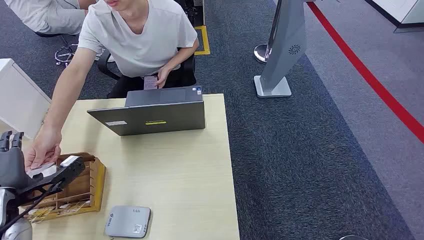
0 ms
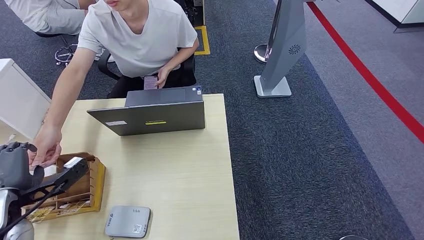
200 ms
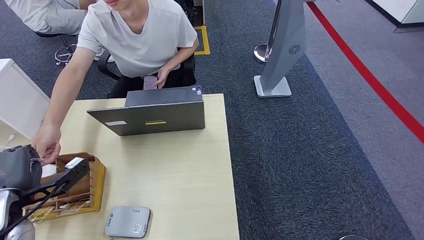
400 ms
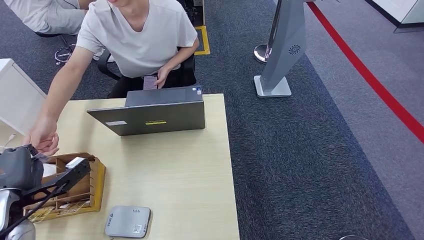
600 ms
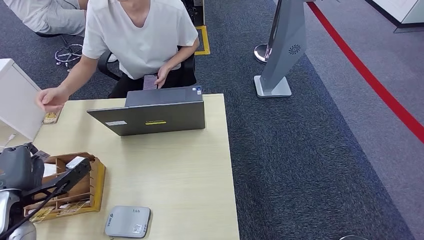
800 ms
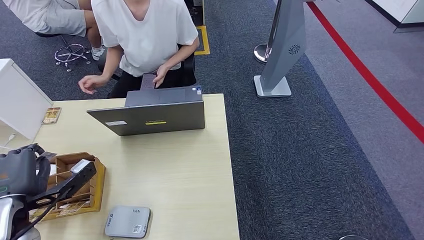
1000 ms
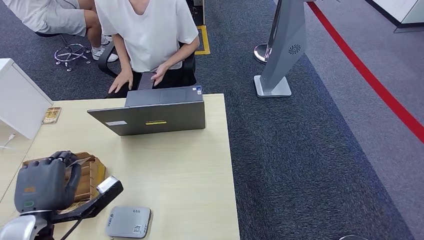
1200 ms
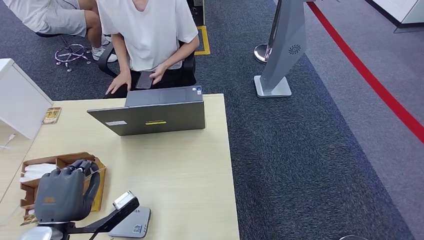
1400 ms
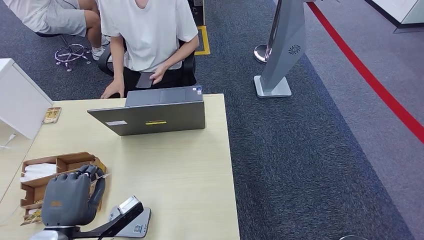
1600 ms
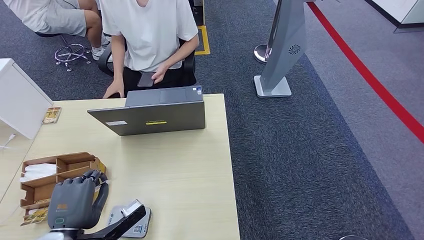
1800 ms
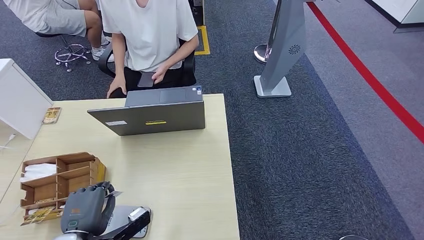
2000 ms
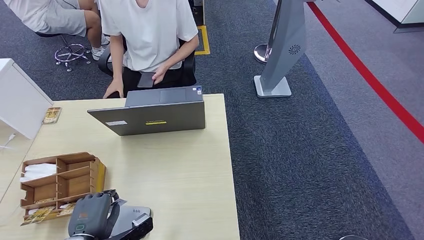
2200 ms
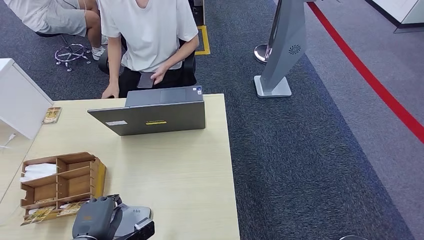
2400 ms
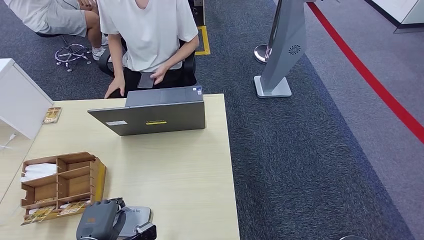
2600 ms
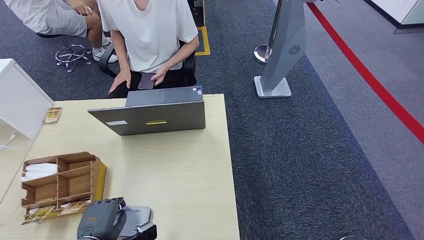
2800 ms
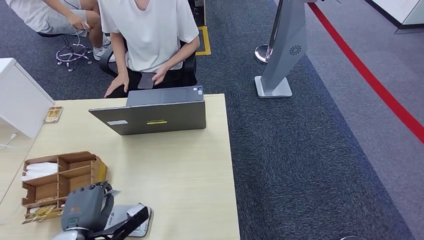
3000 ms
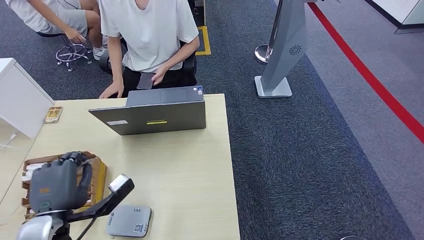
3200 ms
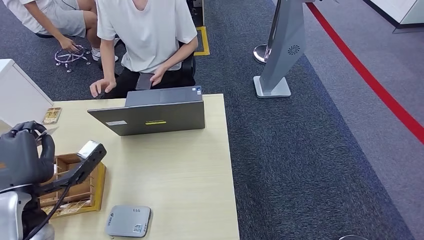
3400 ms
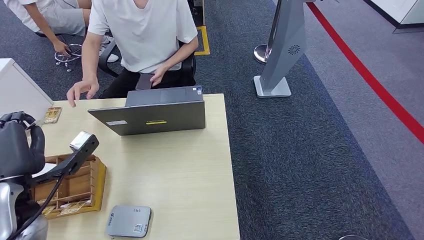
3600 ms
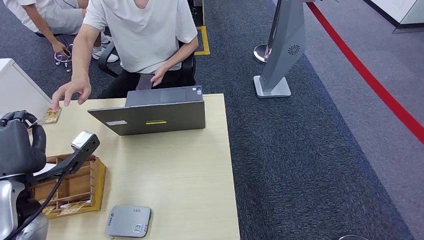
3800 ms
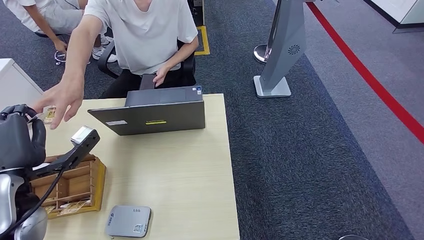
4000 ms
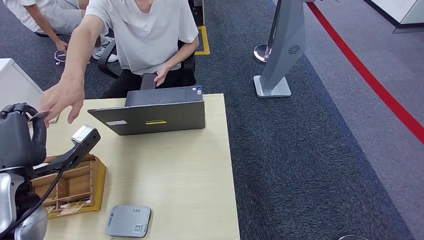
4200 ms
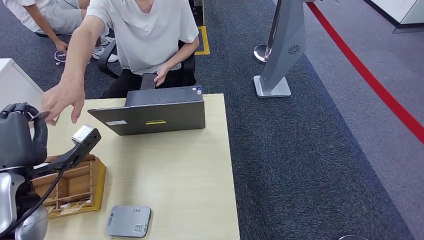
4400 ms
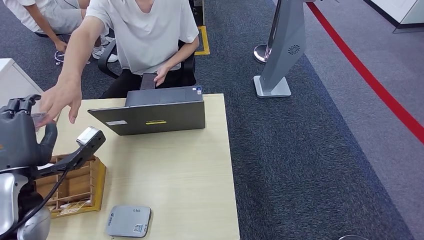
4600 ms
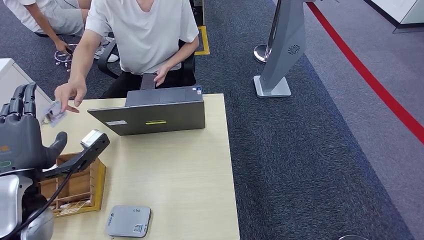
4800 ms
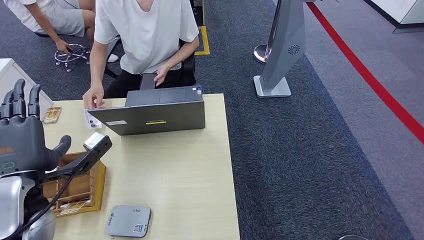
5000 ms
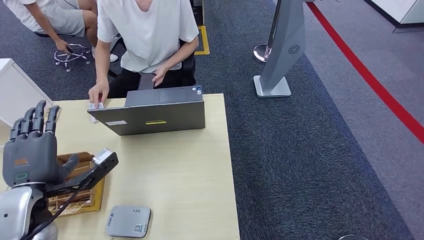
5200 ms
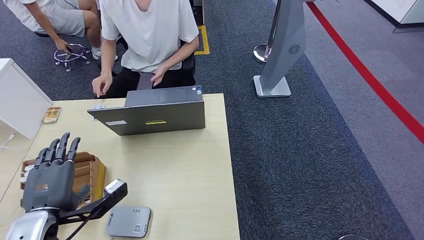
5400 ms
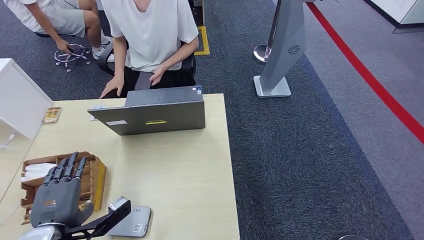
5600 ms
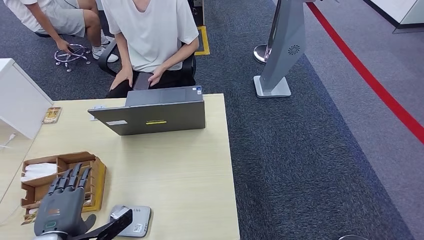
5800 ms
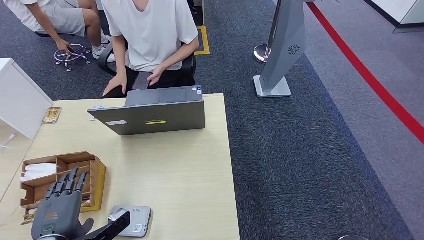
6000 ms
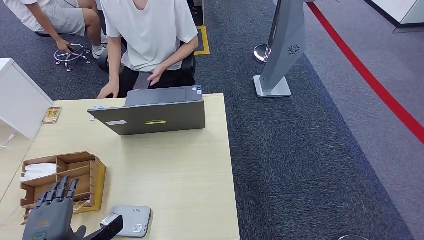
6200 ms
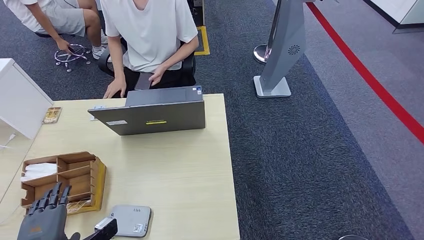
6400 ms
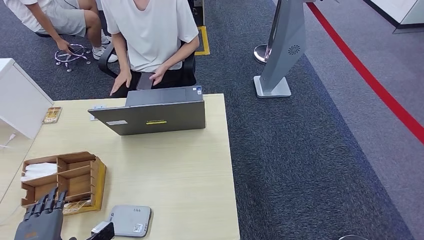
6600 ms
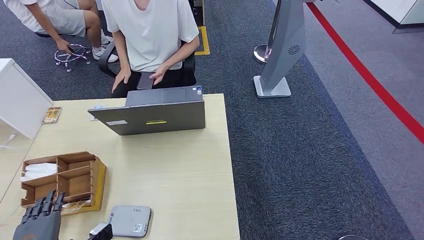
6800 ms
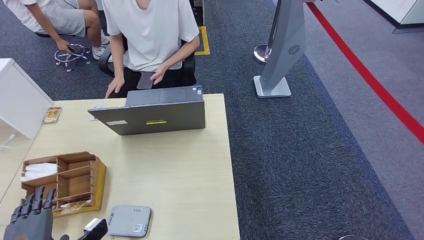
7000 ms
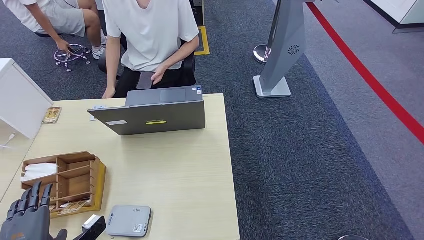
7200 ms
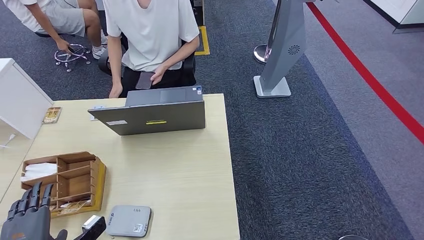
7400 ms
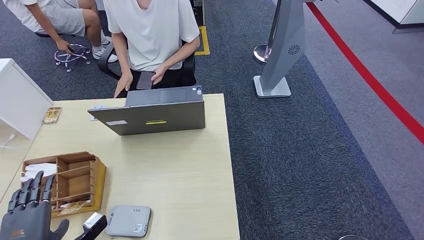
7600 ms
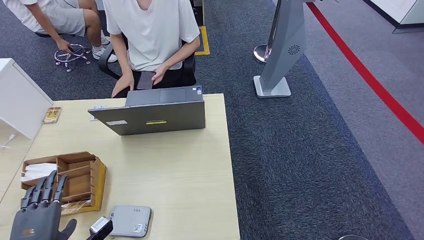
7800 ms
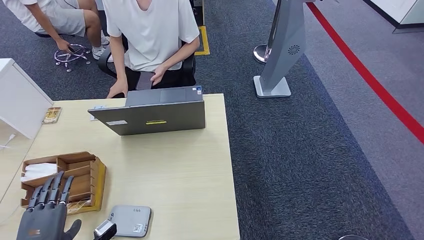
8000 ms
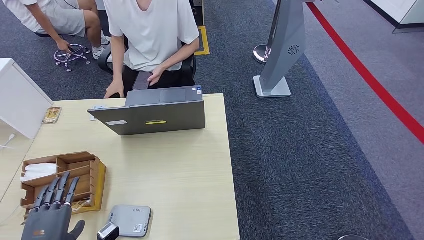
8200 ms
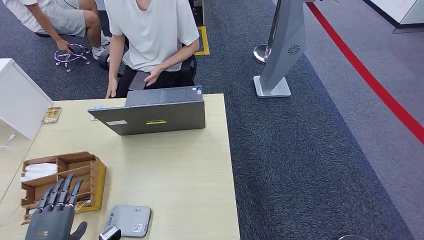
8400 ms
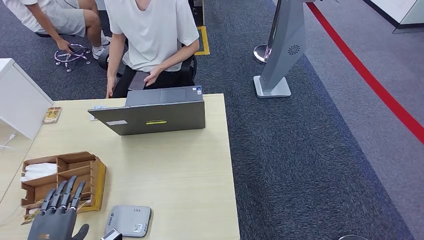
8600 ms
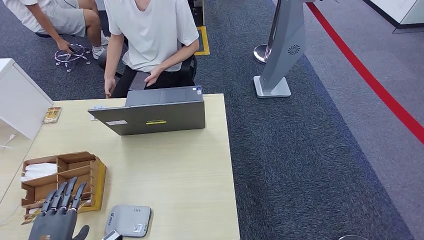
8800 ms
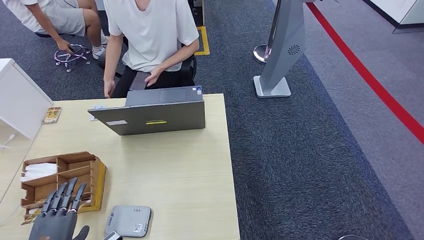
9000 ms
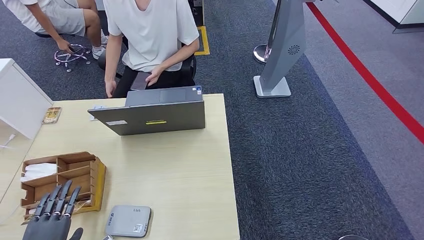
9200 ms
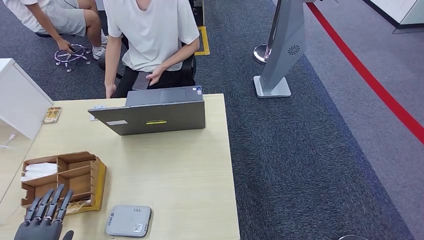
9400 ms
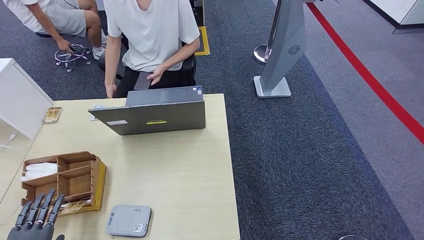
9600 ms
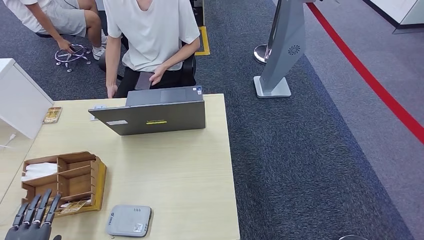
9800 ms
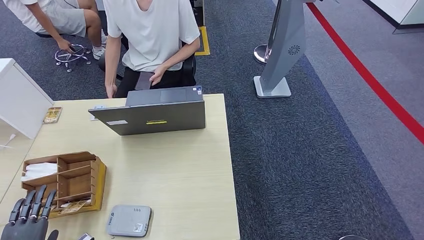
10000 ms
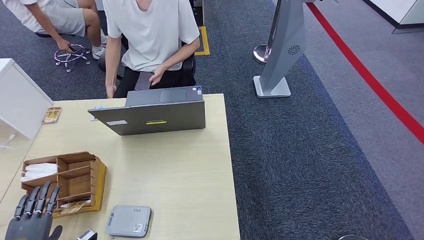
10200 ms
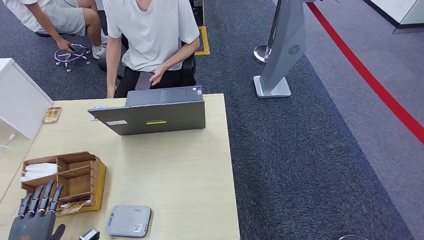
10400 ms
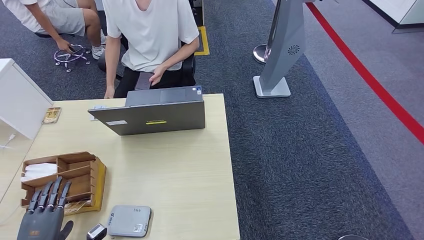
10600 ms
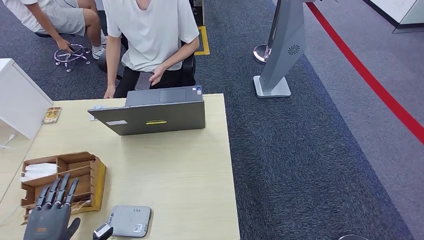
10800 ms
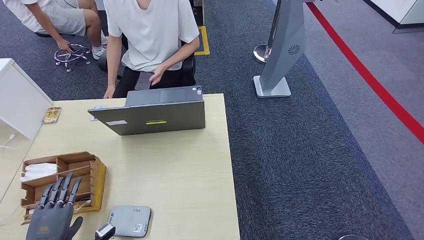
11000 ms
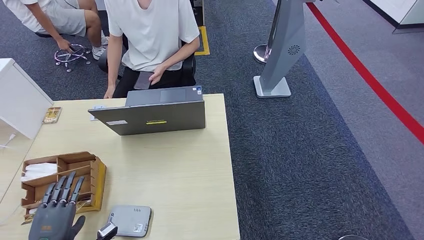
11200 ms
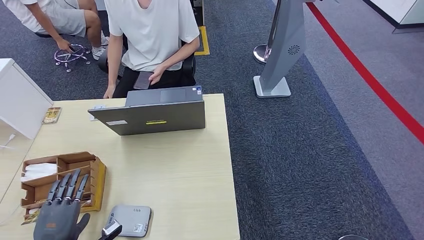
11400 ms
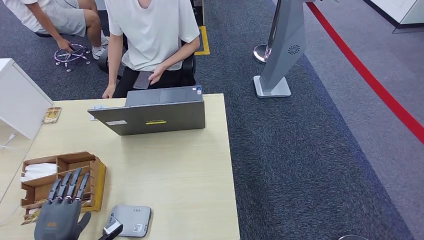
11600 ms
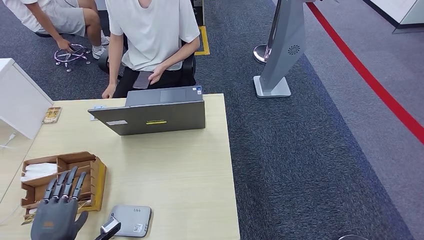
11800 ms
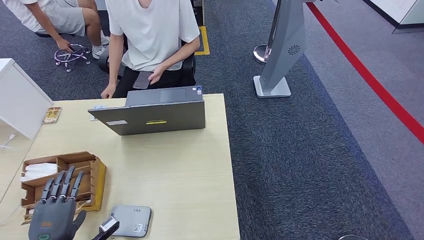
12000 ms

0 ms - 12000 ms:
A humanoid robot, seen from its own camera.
Step, 0 ms - 1200 ms: Take the ID card from the person's hand.
Step, 1400 ms - 2800 ms: Place the ID card on the card reader.
Step, 3000 ms - 5600 ms: Hand the ID card to the person.
1600 ms - 3000 ms: The left hand travels downward by some 5 cm.
3000 ms - 4400 ms: The left hand goes approximately 15 cm upward and forward.
4400 ms - 6000 ms: The left hand is displaced downward and backward by roughly 15 cm.
6000 ms - 7600 ms: The left hand moves about 5 cm.
7600 ms - 9000 ms: There are only small adjustments of the hands.
9000 ms - 10400 ms: The left hand travels to the left by roughly 5 cm.
10400 ms - 12000 ms: The left hand is displaced to the right by about 5 cm.

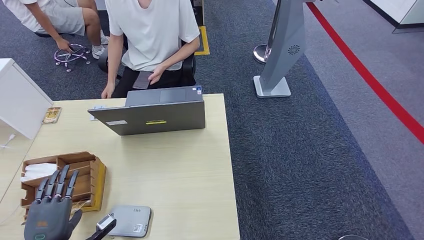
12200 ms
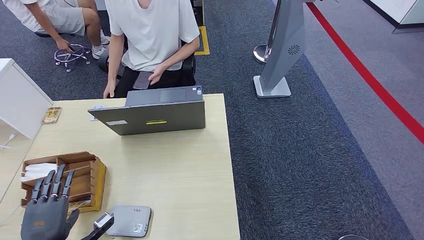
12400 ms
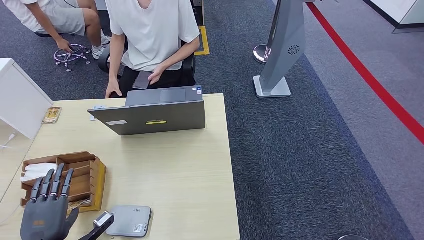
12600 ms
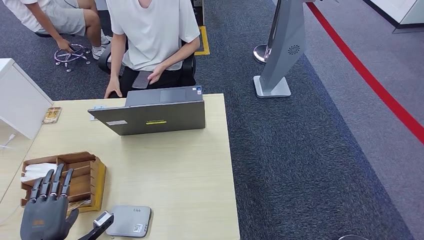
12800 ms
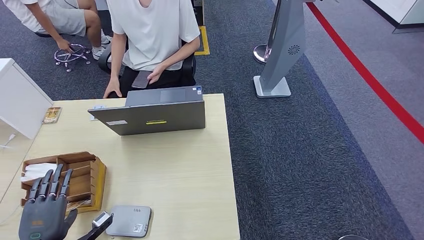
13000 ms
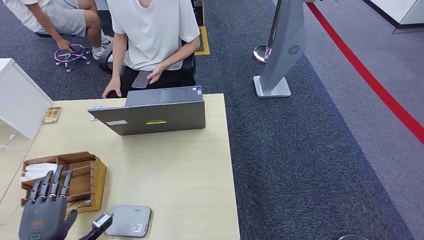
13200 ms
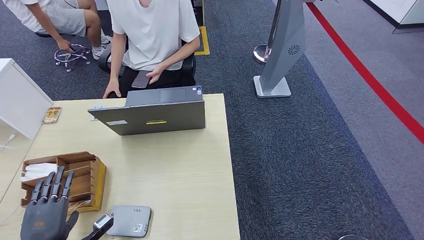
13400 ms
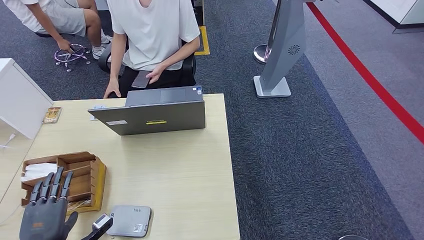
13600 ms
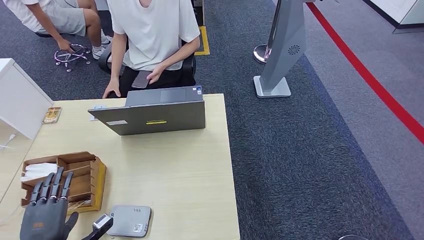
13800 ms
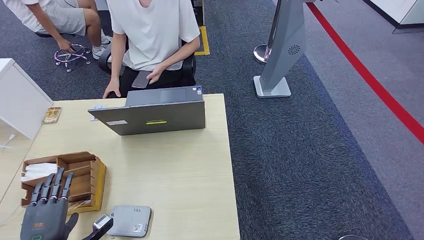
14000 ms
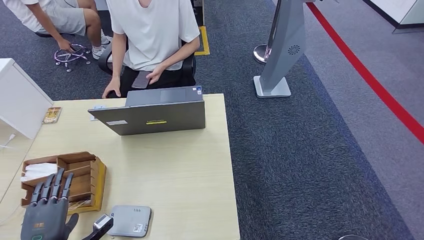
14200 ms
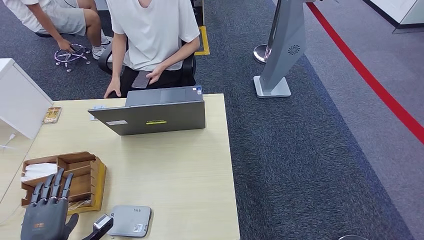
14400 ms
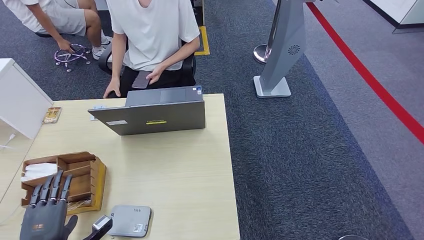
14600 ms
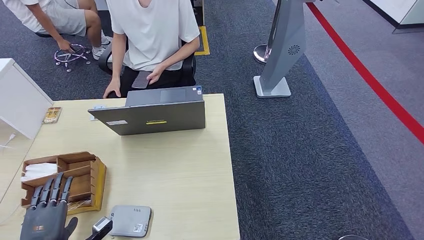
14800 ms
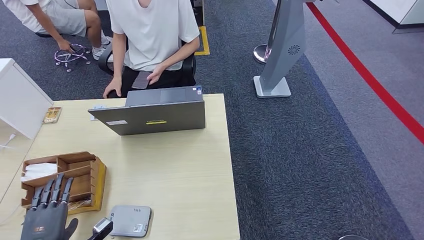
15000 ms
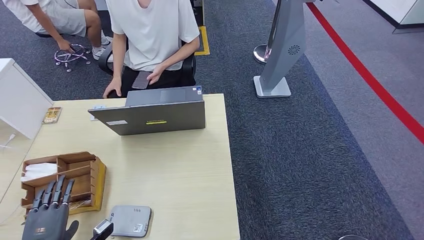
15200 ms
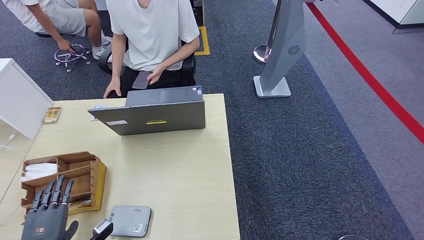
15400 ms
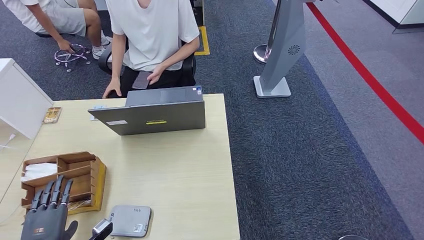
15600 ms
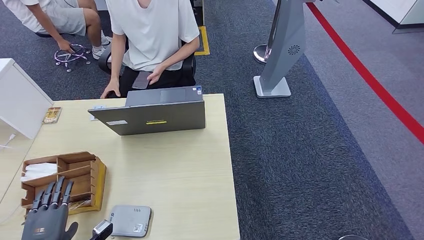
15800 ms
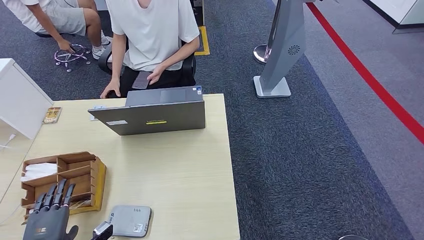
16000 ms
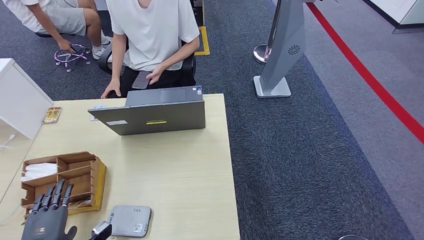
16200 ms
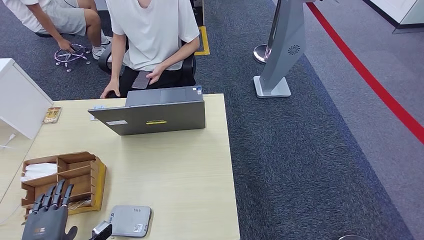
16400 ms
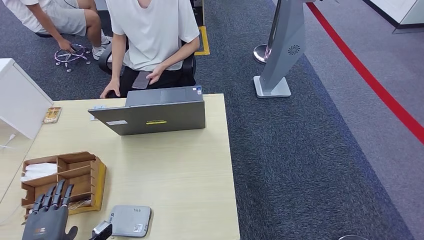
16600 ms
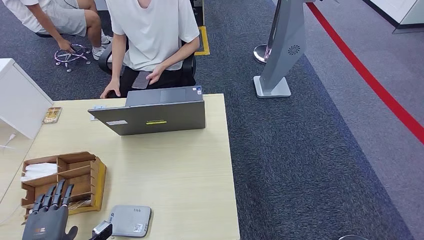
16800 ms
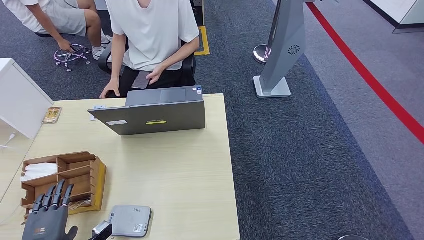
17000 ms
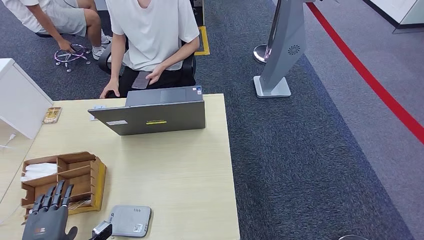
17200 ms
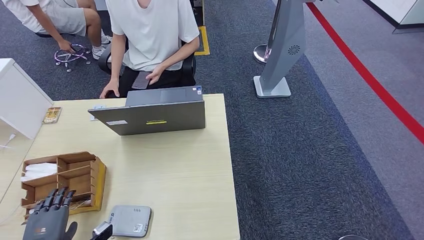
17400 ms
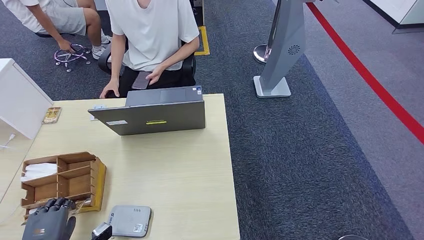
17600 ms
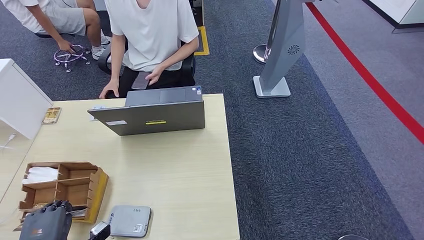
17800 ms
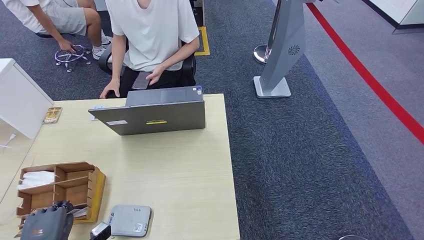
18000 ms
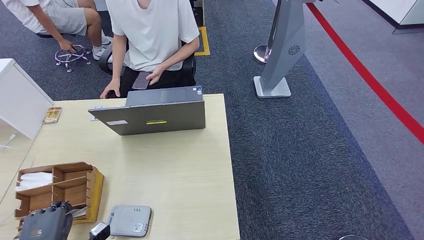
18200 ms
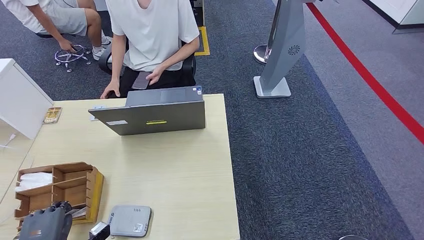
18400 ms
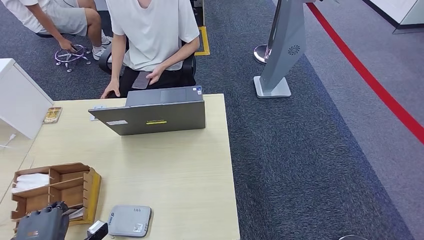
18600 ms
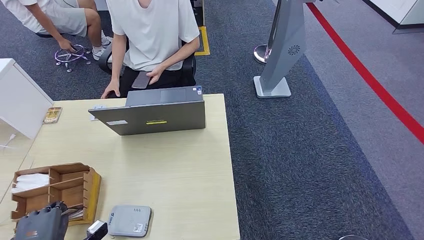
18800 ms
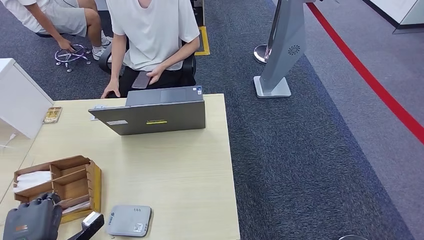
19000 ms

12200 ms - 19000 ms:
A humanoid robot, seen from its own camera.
12200 ms - 13600 ms: Both hands stay about where they are.
13600 ms - 15000 ms: The two hands keep their place.
15000 ms - 16200 ms: The hands make only small movements.
16200 ms - 17600 ms: Neither hand changes place.
17600 ms - 19000 ms: The hands make only small movements.
